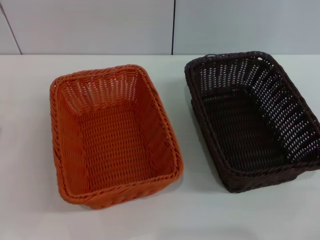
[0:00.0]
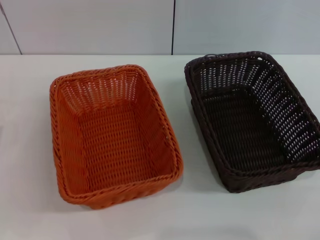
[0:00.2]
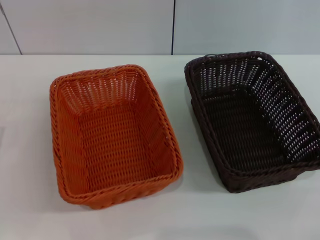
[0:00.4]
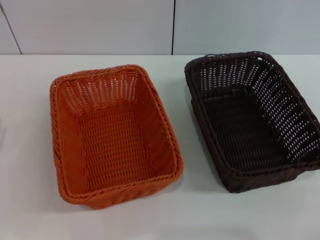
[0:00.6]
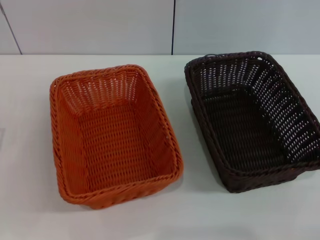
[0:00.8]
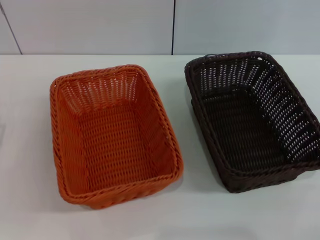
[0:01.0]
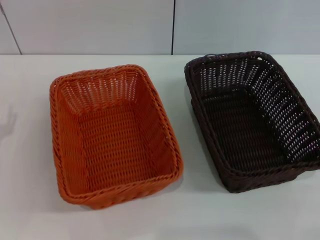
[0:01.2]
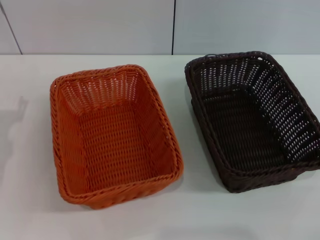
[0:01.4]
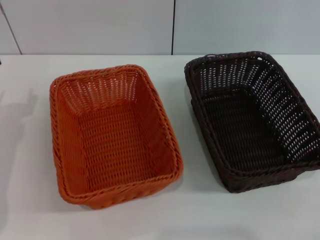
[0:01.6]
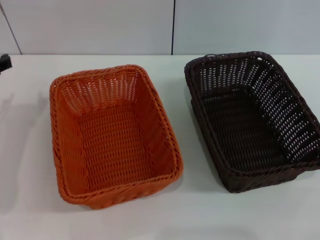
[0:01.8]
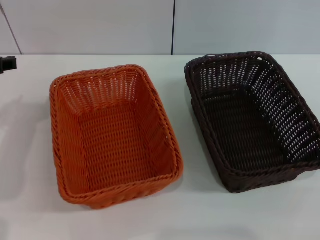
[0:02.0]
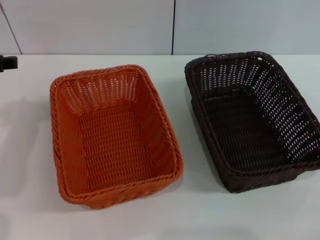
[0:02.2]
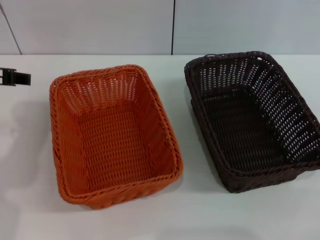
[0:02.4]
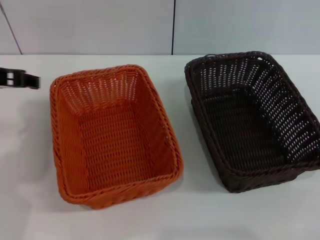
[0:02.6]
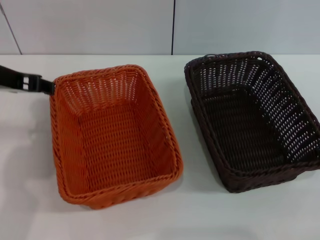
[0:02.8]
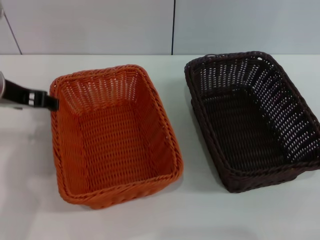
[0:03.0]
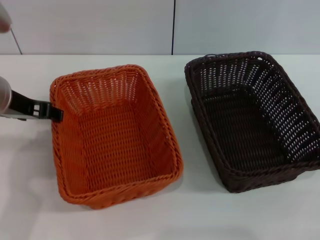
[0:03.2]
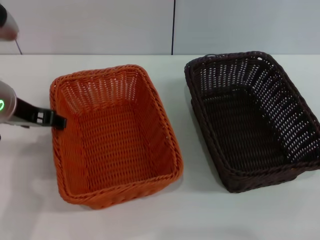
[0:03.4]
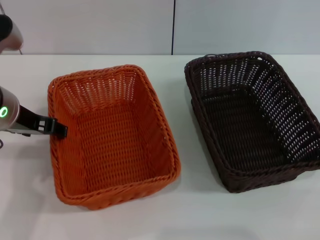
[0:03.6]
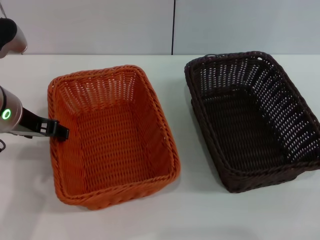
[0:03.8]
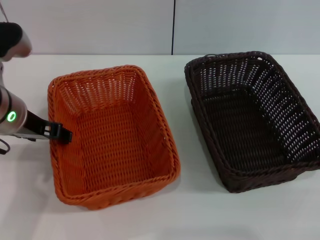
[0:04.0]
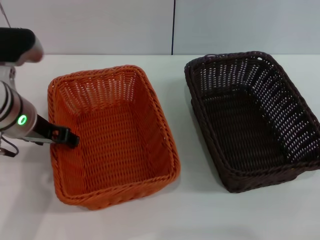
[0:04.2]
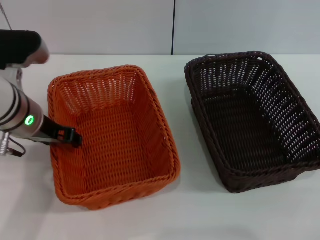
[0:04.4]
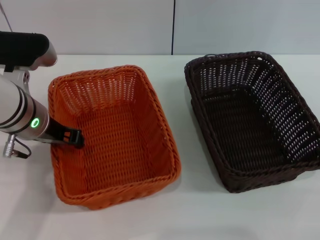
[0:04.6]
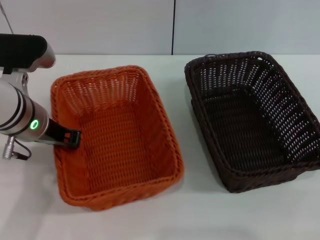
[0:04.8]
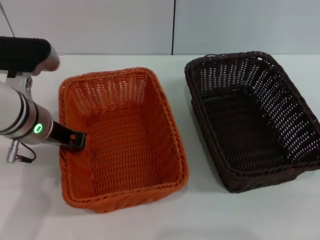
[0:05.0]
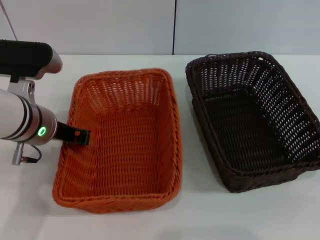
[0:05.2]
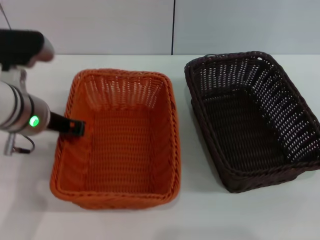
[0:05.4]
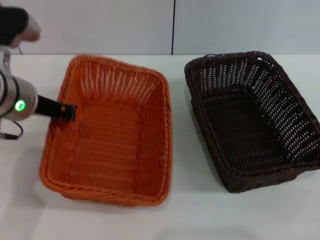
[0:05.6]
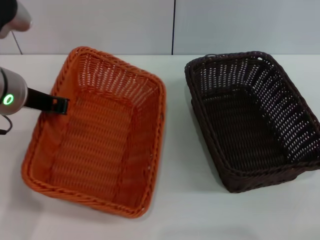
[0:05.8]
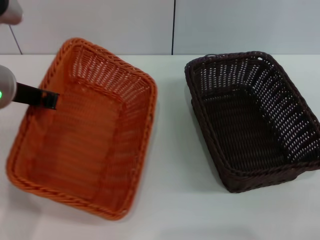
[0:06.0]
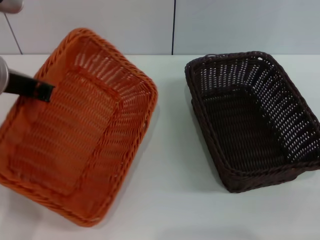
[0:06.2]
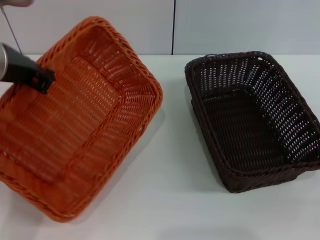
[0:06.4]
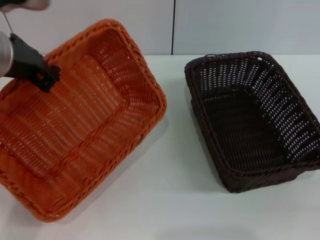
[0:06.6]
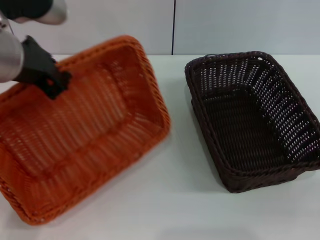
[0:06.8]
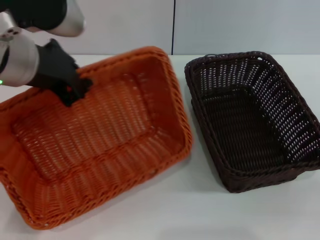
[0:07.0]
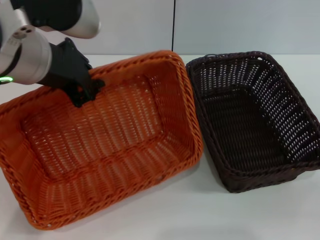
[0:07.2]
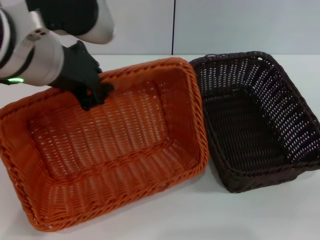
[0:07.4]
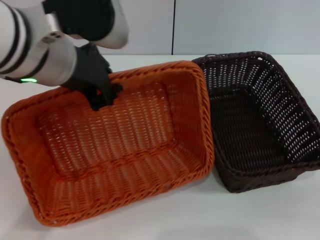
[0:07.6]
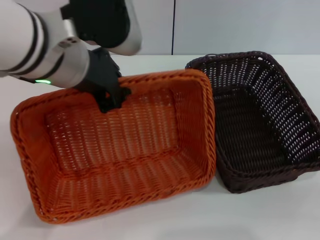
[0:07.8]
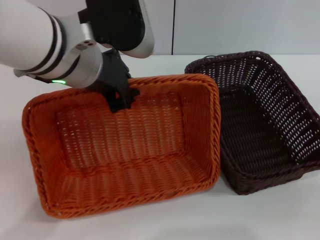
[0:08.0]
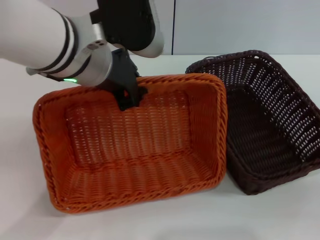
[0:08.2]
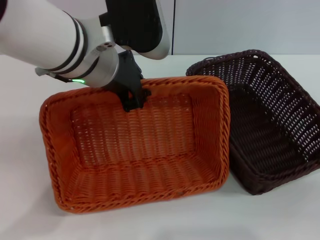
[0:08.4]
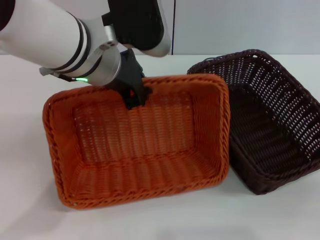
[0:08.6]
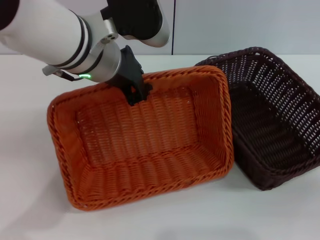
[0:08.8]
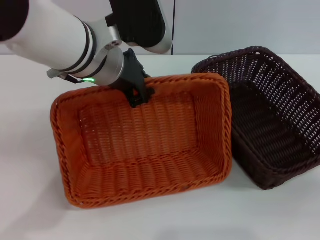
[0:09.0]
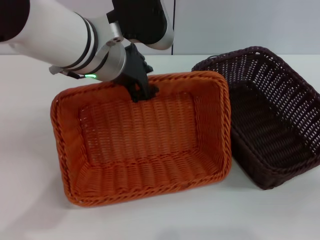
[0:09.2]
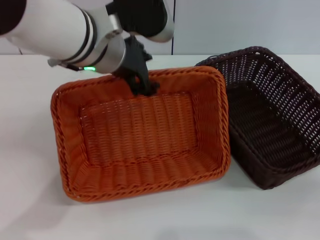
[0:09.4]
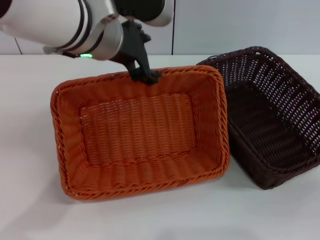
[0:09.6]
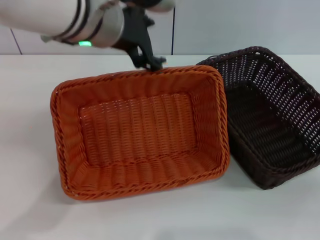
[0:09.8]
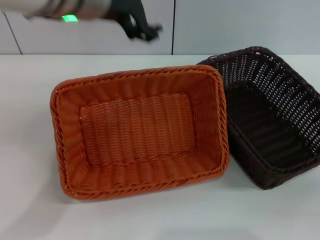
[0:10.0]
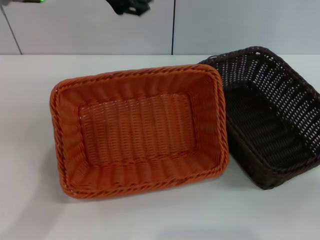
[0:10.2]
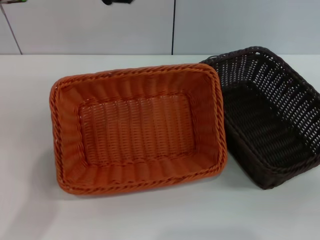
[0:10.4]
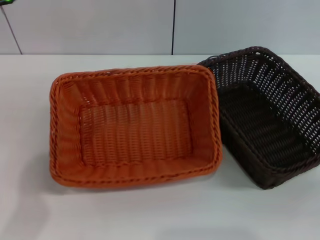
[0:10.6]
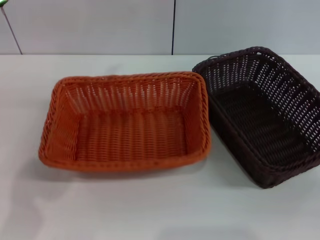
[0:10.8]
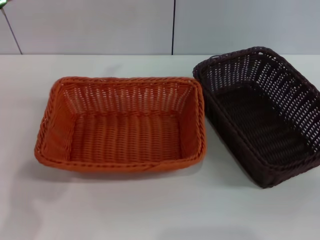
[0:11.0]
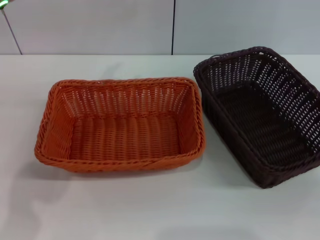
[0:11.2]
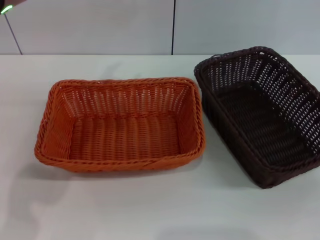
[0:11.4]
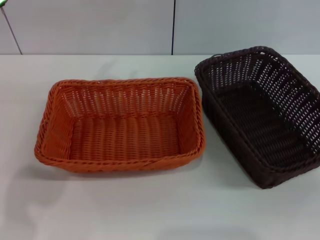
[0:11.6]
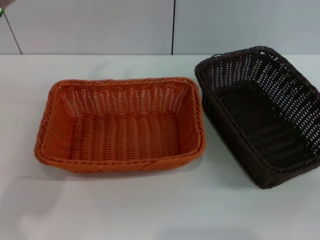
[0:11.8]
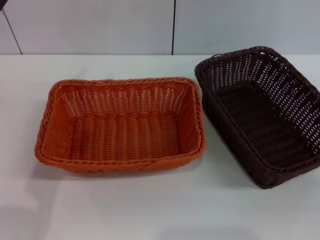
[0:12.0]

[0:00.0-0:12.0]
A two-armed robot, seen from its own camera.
Step, 0:00.0 to 0:05.8: Pick up the light basket with the left gripper.
Step, 0:06.2 to 0:10.8: Place the light basket in the center of view with the left gripper.
0:01.6 to 0:03.0: The left gripper shifts about 15 cm upward and to the right.
0:03.0 to 0:04.4: The left gripper heads downward, covering about 5 cm.
0:04.4 to 0:06.0: The left gripper is displaced upward by approximately 5 cm, and closes up.
0:06.0 to 0:07.6: The left gripper goes approximately 10 cm to the right and upward, while the right gripper shifts roughly 5 cm backward.
0:07.6 to 0:09.0: The left gripper is displaced forward by some 5 cm.
0:09.0 to 0:10.4: The left gripper moves upward, roughly 10 cm, and opens up.
0:10.4 to 0:12.0: The left gripper is displaced downward and to the left by approximately 10 cm.

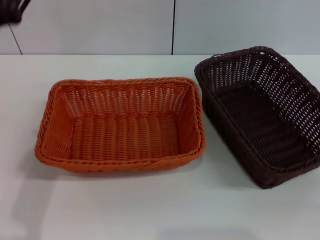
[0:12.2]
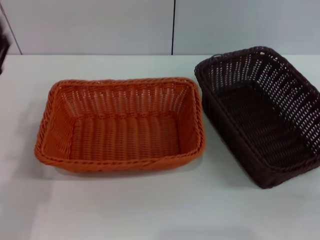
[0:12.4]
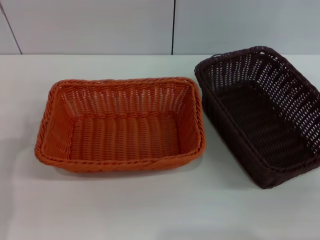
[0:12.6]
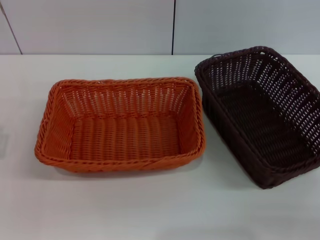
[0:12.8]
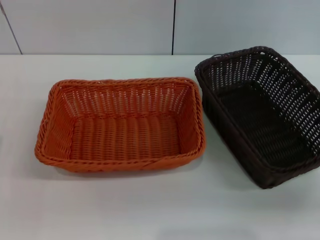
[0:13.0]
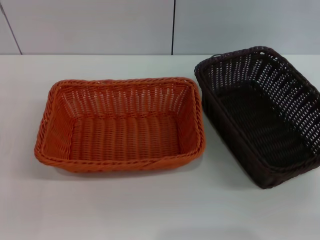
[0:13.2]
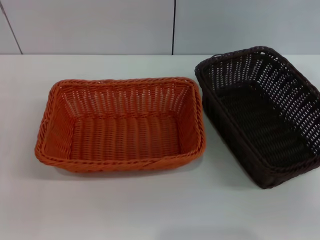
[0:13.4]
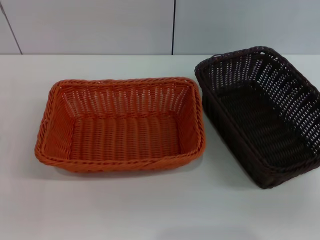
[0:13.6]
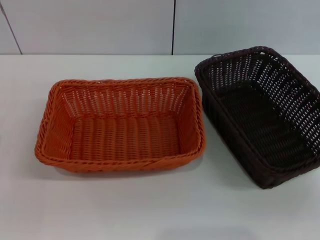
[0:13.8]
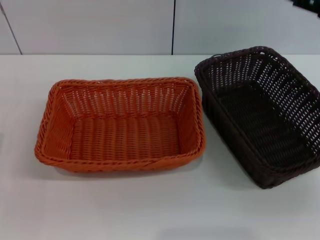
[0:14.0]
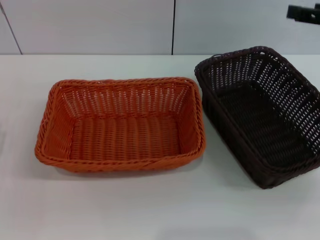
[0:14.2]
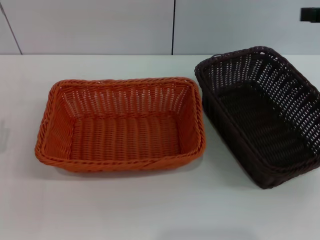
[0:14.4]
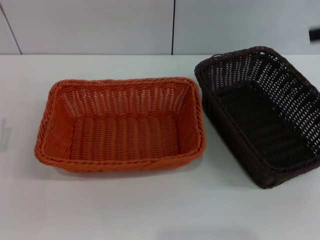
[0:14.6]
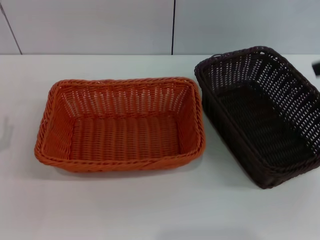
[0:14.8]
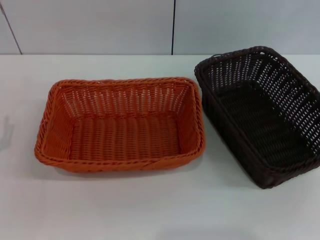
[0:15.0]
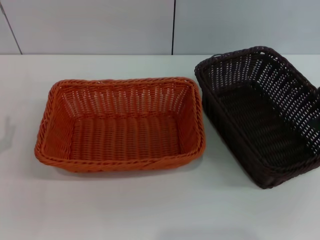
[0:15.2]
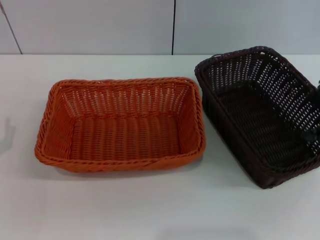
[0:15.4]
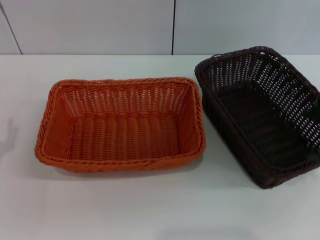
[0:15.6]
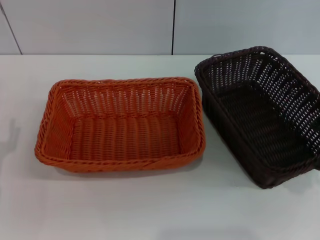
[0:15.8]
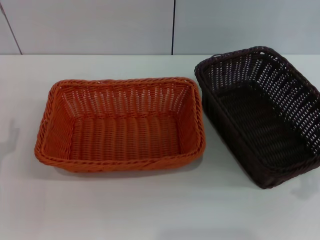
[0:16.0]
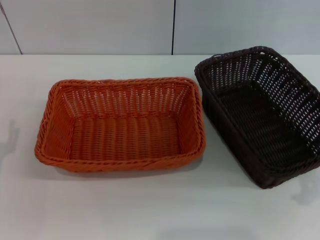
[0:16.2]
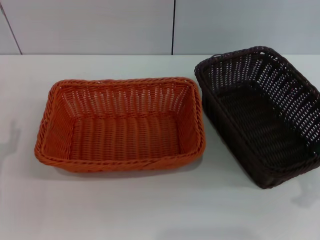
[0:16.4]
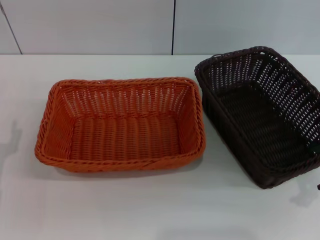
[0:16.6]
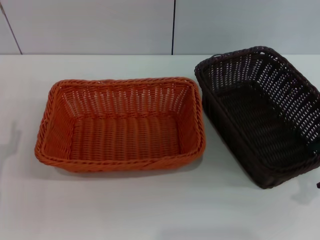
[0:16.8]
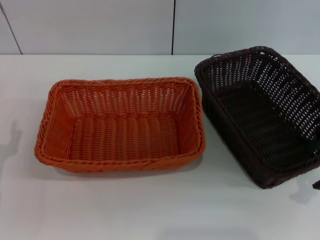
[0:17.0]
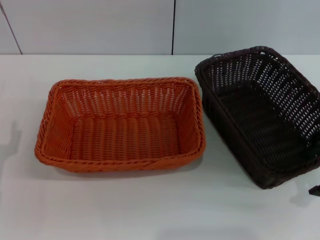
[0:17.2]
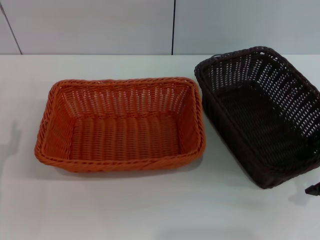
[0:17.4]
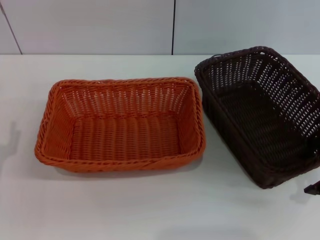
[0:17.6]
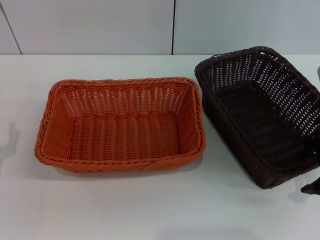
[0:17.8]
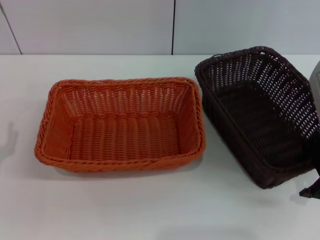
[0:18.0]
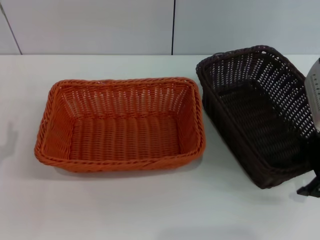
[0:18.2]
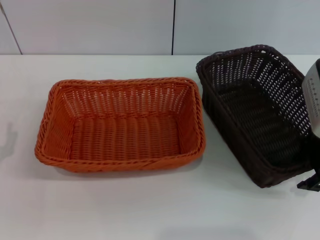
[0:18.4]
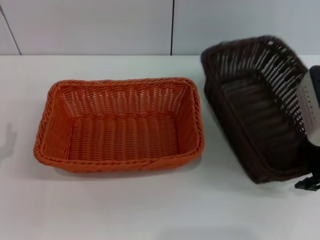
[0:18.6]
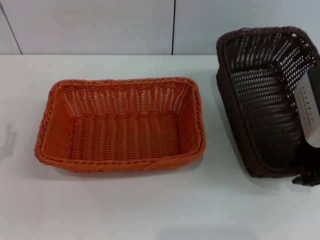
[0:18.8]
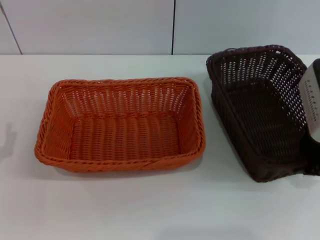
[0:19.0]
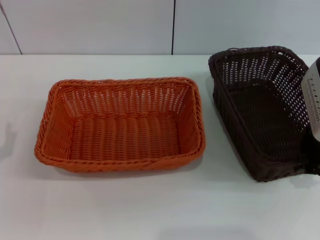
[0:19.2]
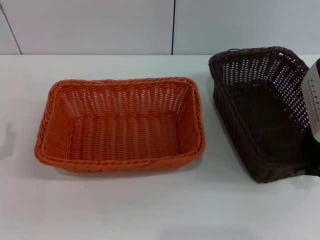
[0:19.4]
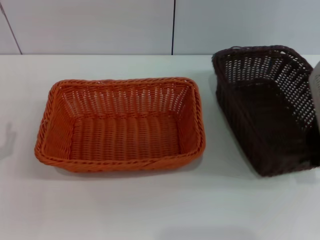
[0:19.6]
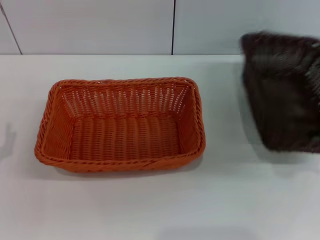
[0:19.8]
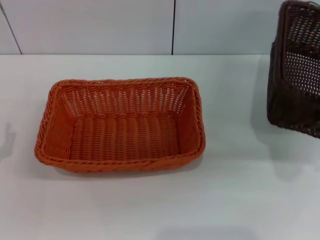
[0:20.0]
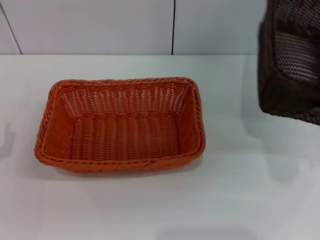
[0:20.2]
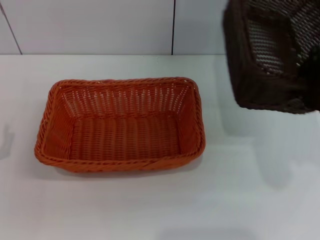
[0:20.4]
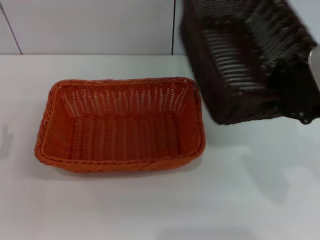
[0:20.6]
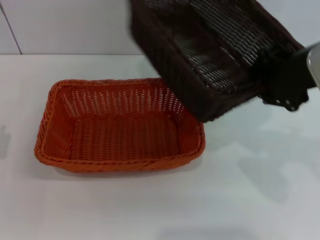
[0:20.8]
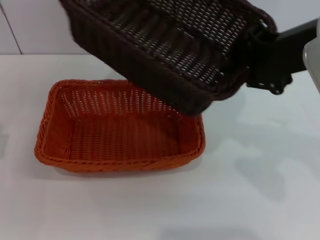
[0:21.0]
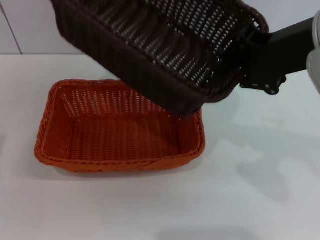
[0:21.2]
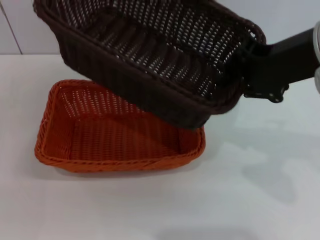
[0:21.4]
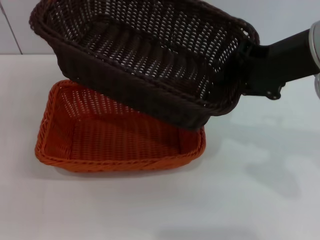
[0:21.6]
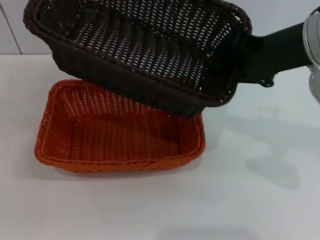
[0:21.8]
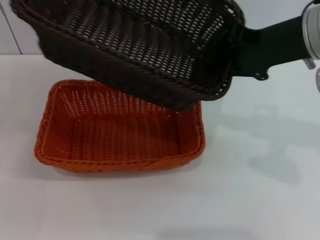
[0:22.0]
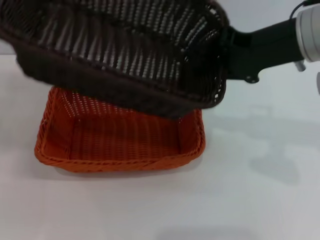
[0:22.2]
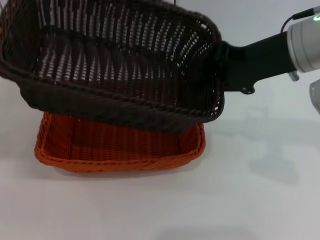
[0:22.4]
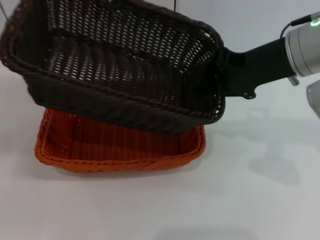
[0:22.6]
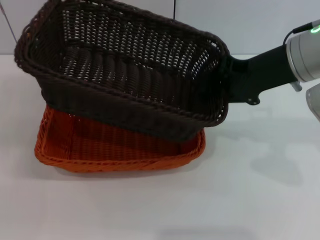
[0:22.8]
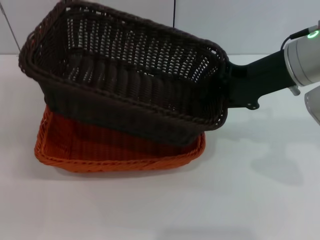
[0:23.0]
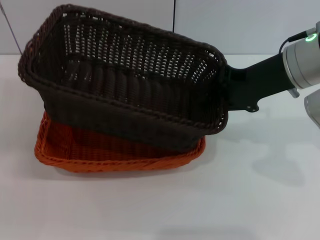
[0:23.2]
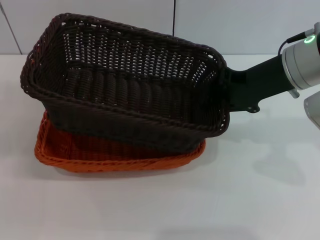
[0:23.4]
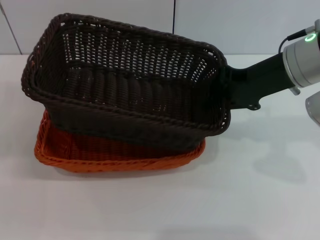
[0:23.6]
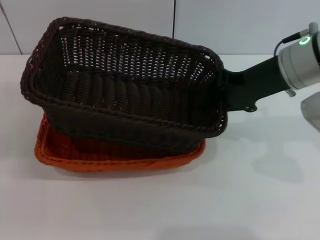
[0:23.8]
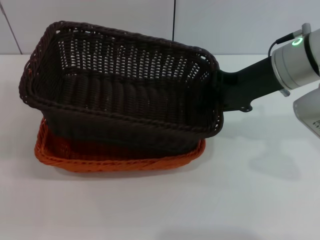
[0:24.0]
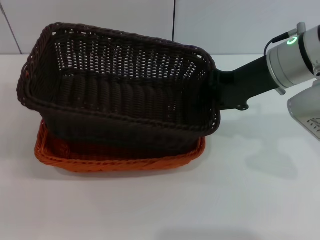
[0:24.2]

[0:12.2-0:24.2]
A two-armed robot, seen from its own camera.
Step, 0:12.2 to 0:19.6: Pick up the dark basket with the right gripper.
0:12.2 to 0:13.8: The left gripper goes about 20 cm downward and to the left.
0:16.6 to 0:18.2: The right gripper is displaced downward by roughly 10 cm.
0:18.2 to 0:19.8: The right gripper shifts about 5 cm upward, and closes.
0:19.8 to 0:21.2: The right gripper goes approximately 10 cm to the left and upward.
0:21.2 to 0:22.6: The right gripper is displaced downward and forward by about 10 cm.
